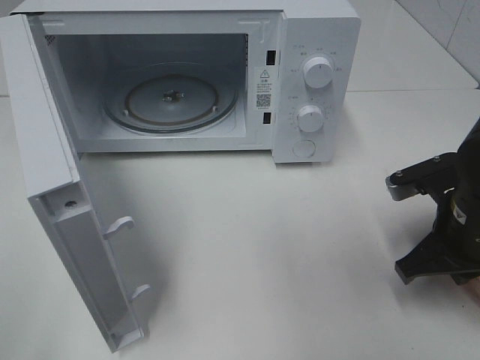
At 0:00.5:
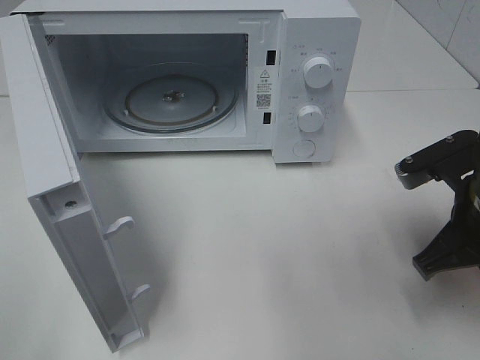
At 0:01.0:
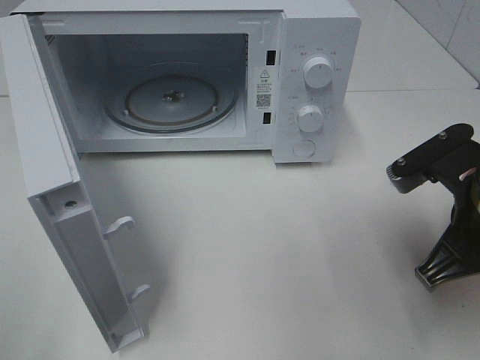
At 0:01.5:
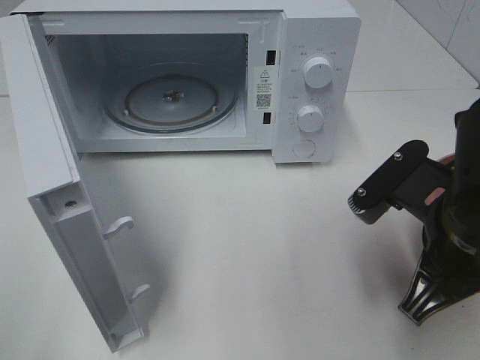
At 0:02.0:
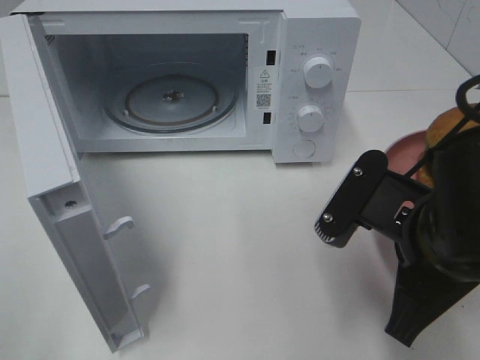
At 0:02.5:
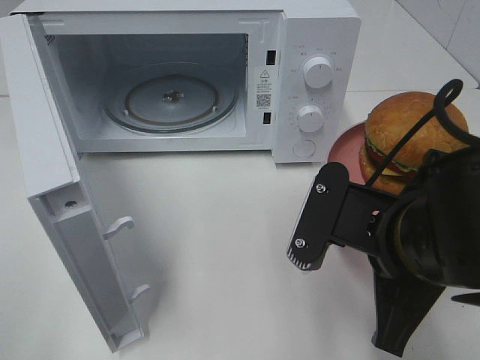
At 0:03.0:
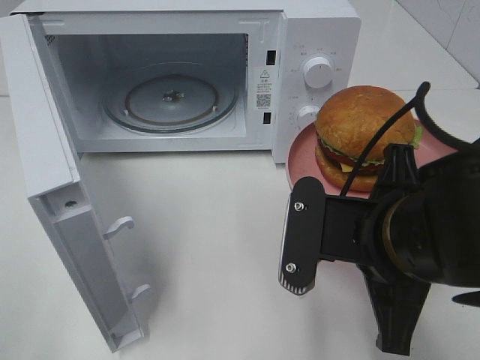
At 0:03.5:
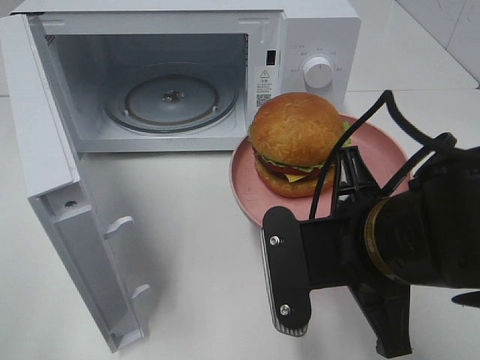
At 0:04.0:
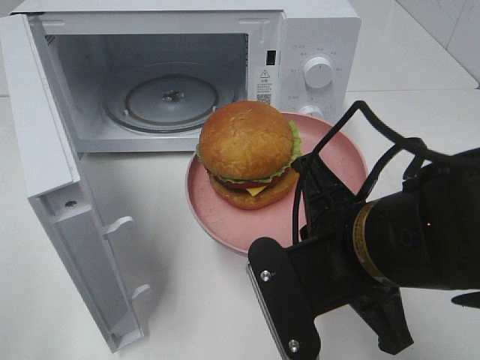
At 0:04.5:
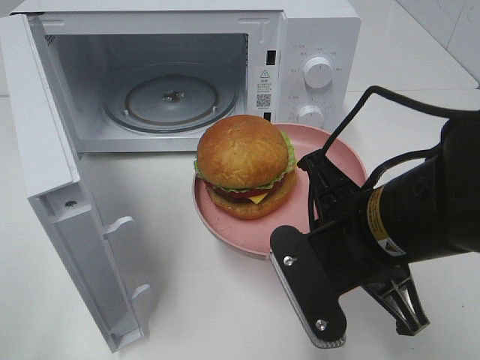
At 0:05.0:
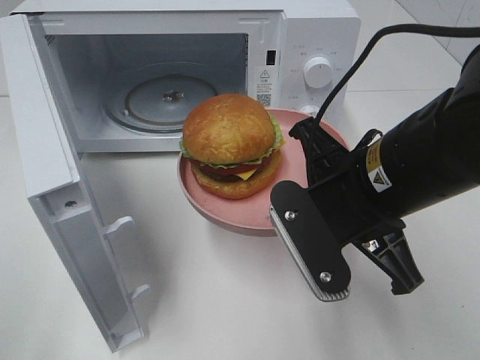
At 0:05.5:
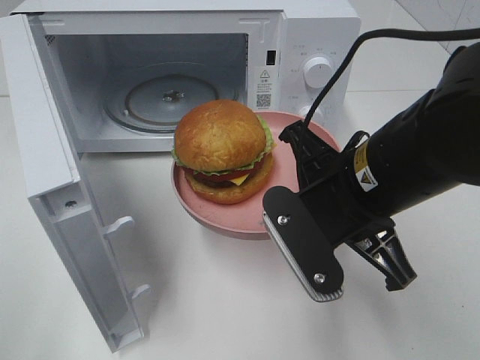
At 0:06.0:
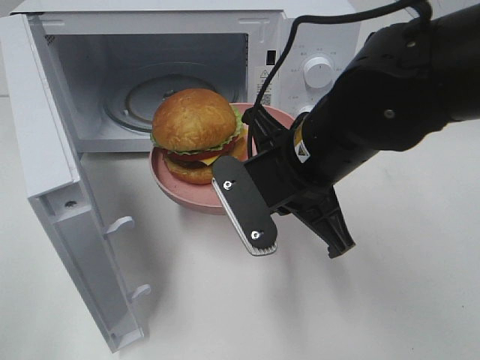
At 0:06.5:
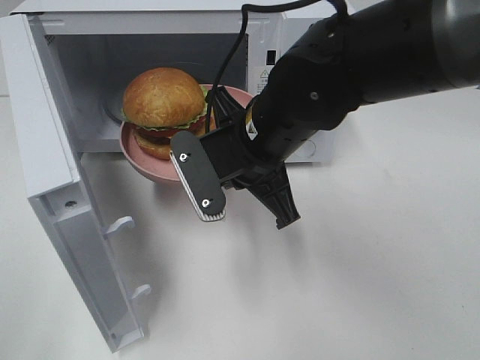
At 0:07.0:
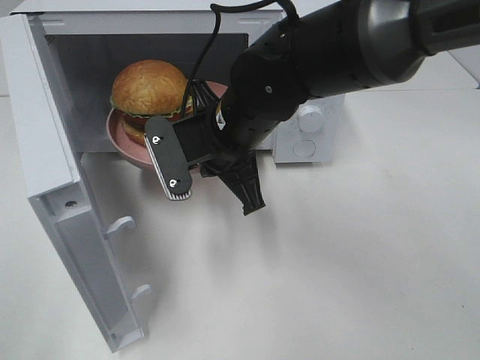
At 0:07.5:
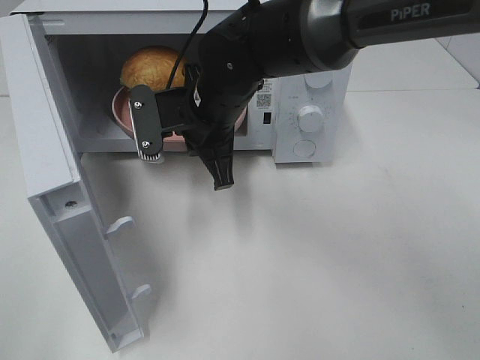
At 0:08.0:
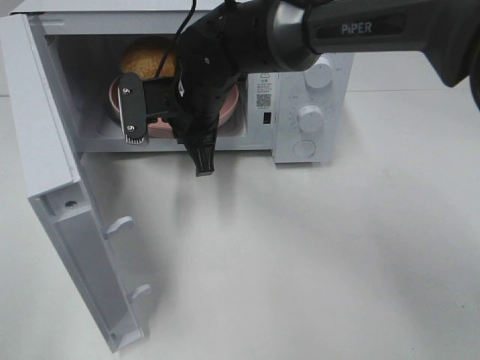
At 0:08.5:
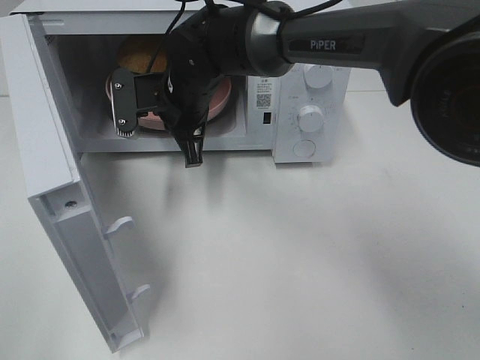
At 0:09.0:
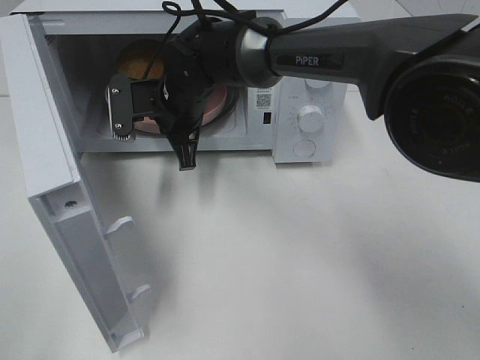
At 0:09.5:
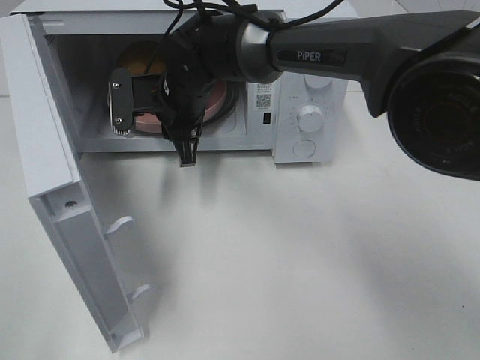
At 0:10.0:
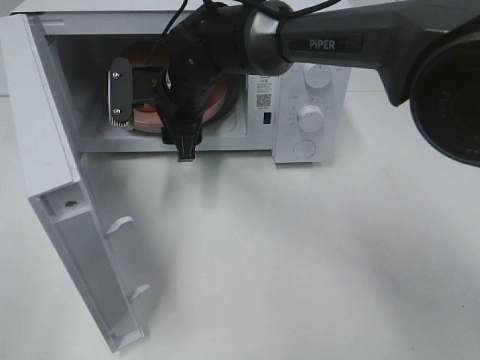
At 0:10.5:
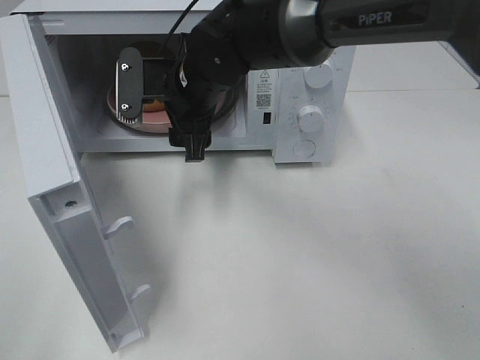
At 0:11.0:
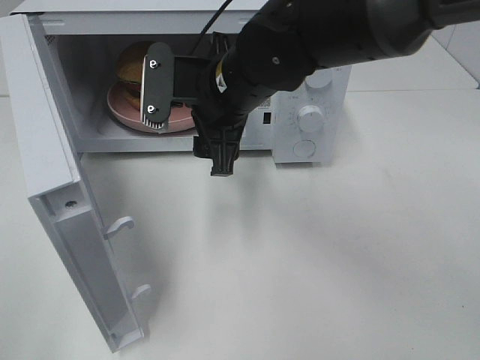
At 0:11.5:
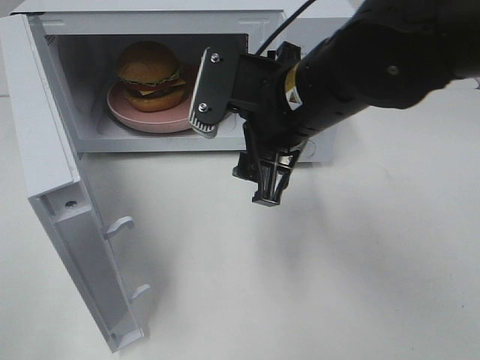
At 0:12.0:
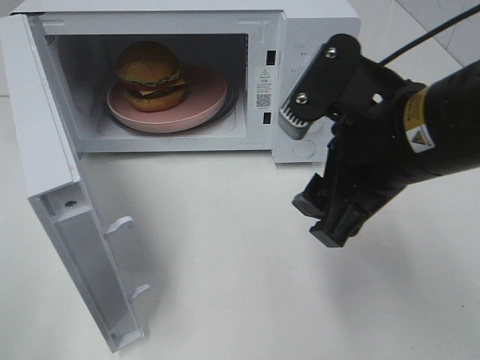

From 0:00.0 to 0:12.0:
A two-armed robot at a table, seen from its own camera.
Task of the whole recording: Heat the burger.
Step, from 0:00.0 to 0:09.0: Right hand: place the plate in the microwave.
From 0:00.0 to 0:02.0: The right gripper heads to the left, backward and upward, covering about 15 cm.
From 0:02.0 to 0:04.0: The right gripper heads to the left, covering some 5 cm.
From 0:04.0 to 0:06.0: The right gripper moves forward, some 10 cm.
From 0:06.0 to 0:08.0: The right gripper travels forward and to the left by about 15 cm.
From 0:08.0 to 0:10.0: The right gripper opens its fingers.
From 0:10.0 to 0:12.0: The right gripper moves backward and to the right, approximately 25 cm.

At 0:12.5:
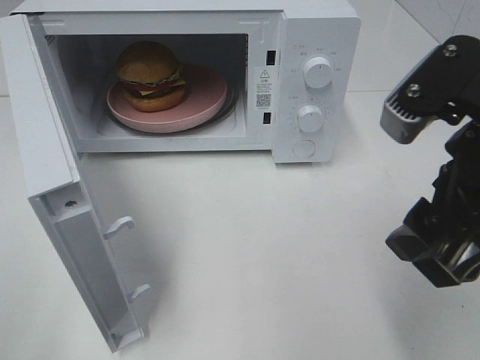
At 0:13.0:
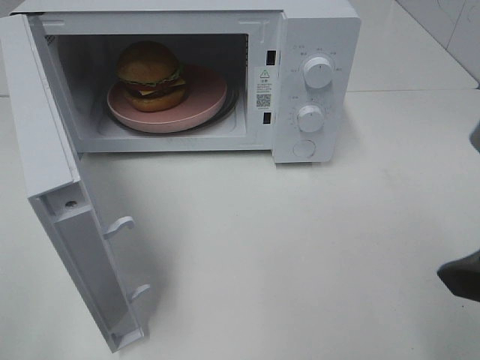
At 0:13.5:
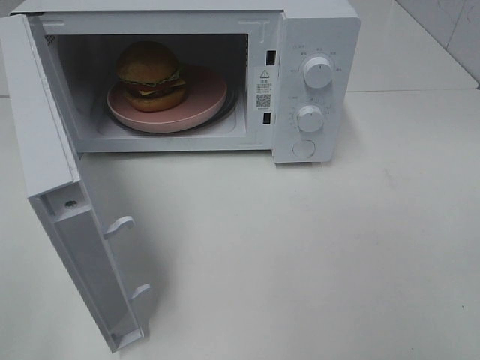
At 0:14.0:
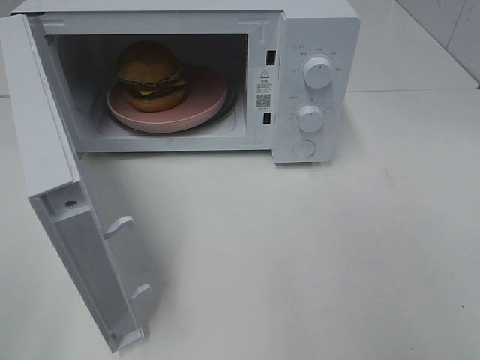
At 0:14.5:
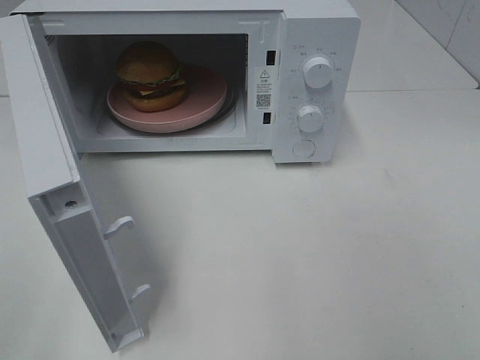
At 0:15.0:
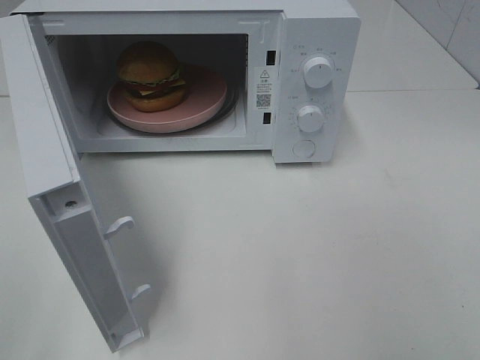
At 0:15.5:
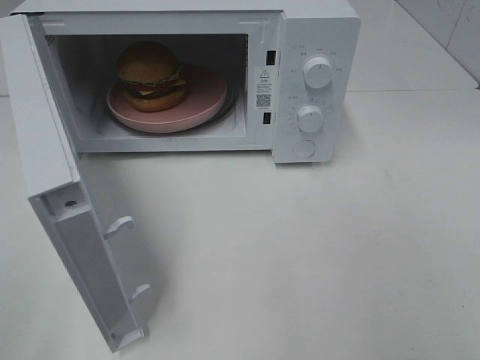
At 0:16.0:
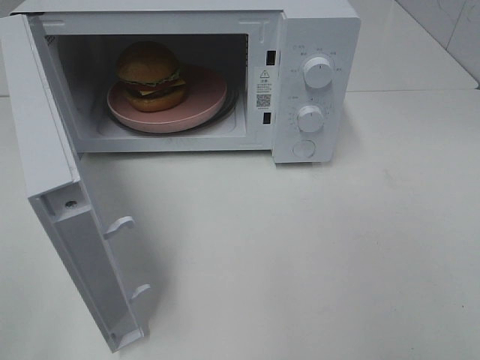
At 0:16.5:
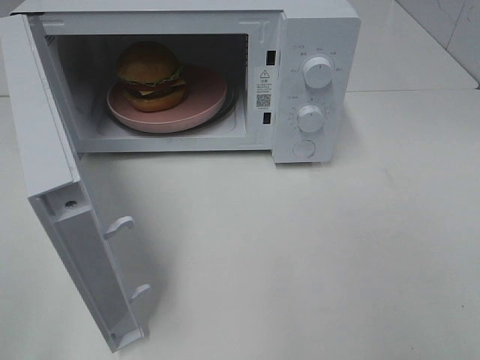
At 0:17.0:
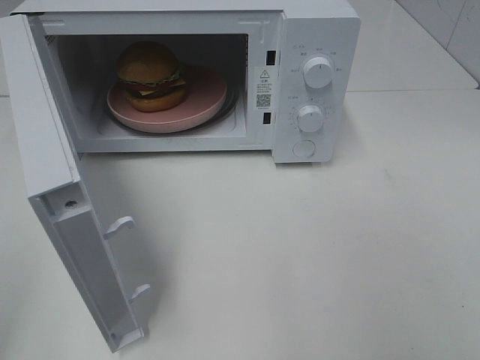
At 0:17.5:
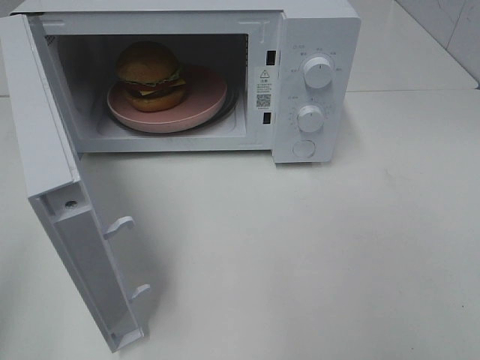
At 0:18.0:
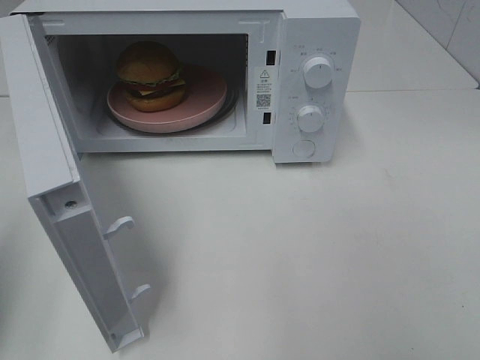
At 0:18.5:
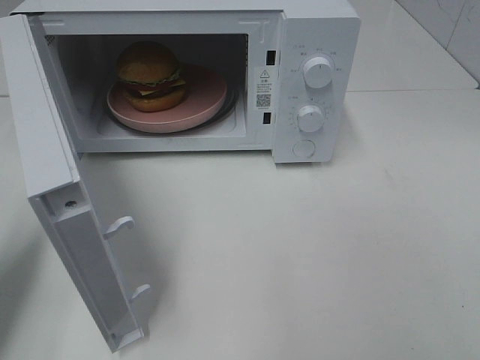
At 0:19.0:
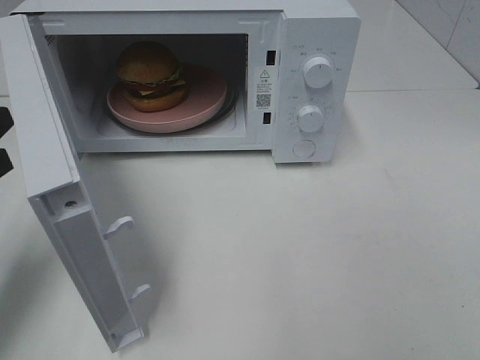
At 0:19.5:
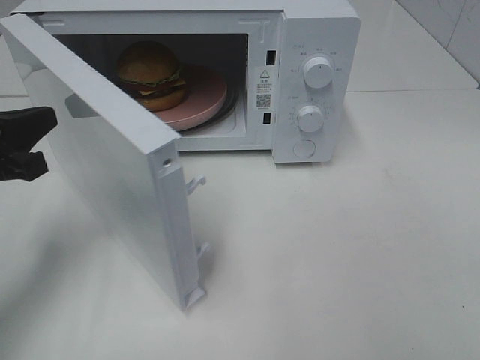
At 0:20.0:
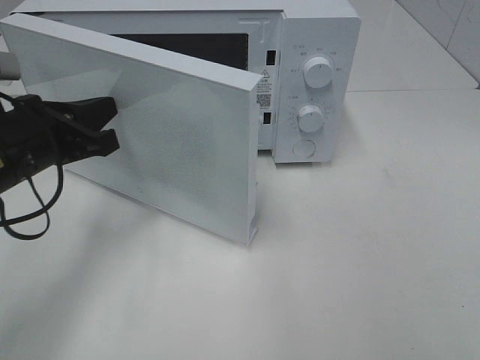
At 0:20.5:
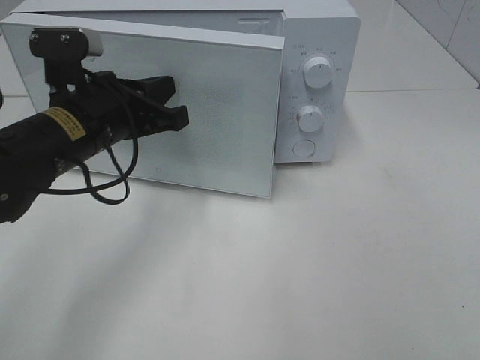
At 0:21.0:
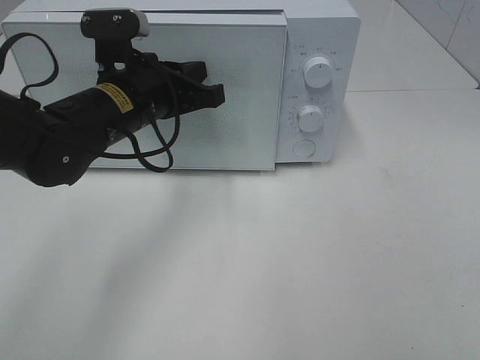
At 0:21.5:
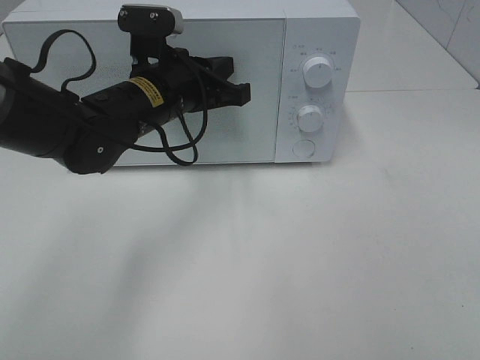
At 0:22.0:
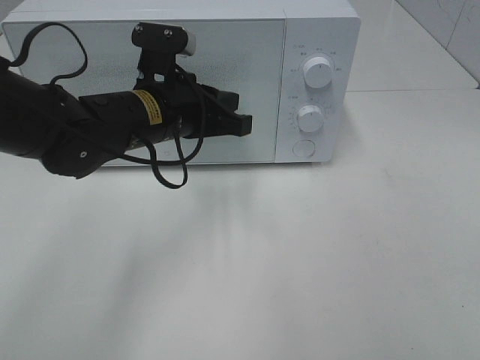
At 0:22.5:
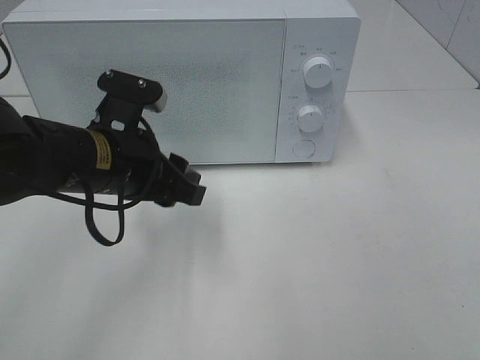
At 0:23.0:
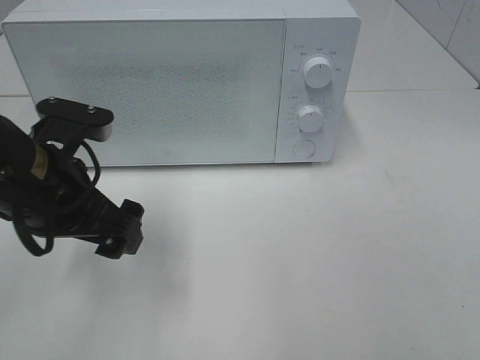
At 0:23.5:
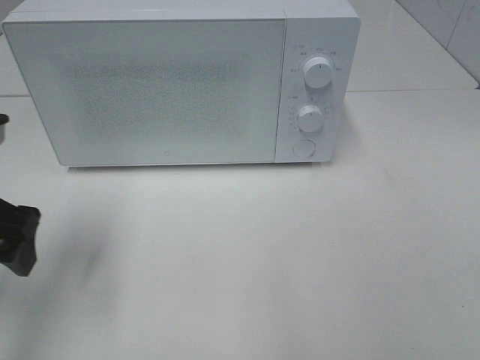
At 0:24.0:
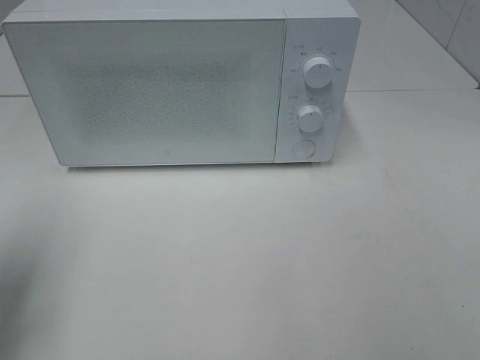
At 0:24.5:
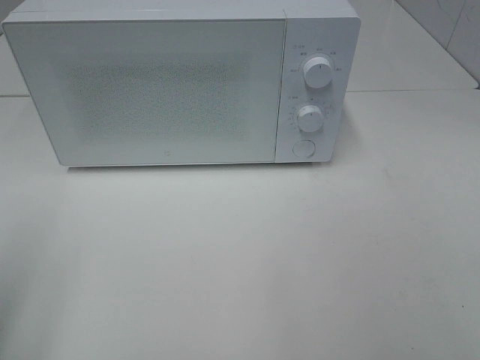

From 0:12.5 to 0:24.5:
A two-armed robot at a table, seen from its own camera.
Task of the whole recording: Heat the burger.
Step, from 0:12.5 to 0:22.0: Left hand: close the microwave door.
From 0:12.5 to 0:14.5: The right gripper goes about 20 cm backward and to the right.
From 0:14.5 to 0:16.5: The two grippers keep their place.
From 0:16.5 to 0:18.5: The left gripper is displaced forward and downward by roughly 20 cm, and closes.
From 0:18.5 to 0:20.5: The left gripper shifts approximately 20 cm to the right and forward.
From 0:20.5 to 0:22.5: The left gripper opens its fingers.
From 0:22.5 to 0:24.5: The left gripper shifts some 25 cm to the left, backward and upward.

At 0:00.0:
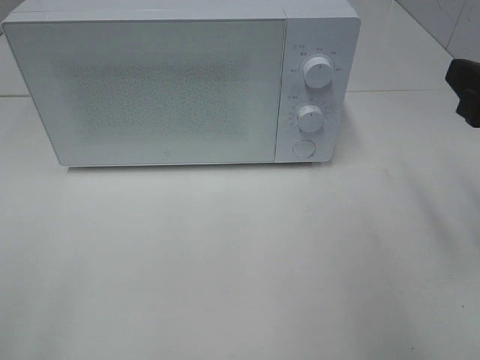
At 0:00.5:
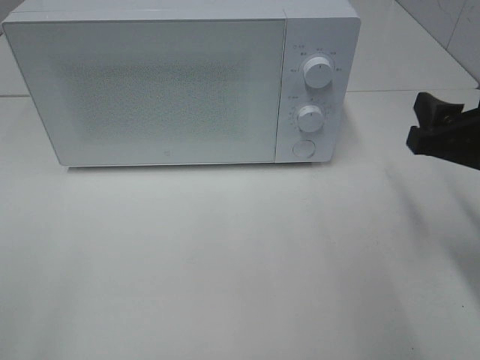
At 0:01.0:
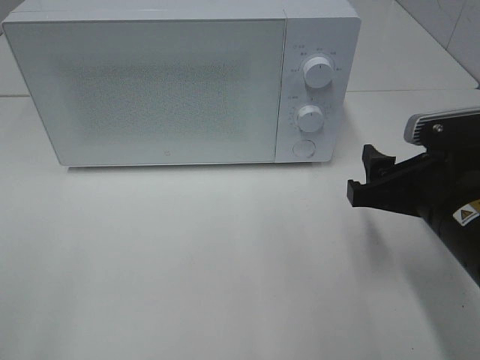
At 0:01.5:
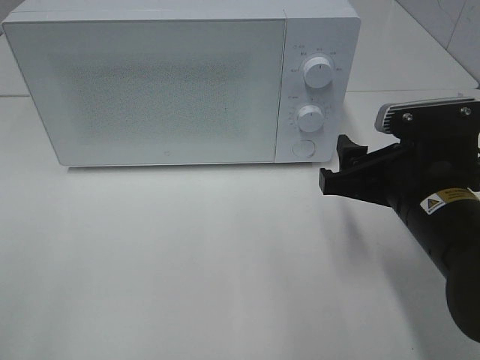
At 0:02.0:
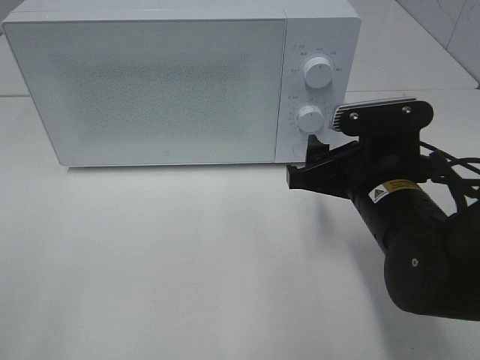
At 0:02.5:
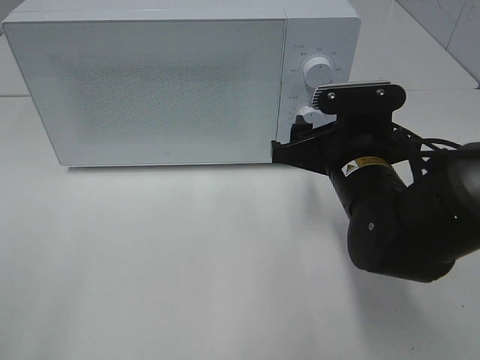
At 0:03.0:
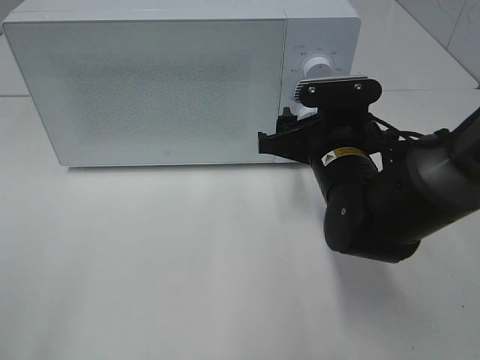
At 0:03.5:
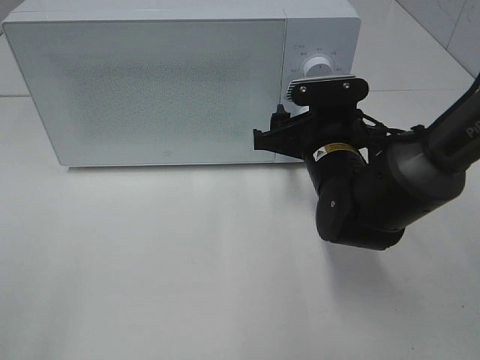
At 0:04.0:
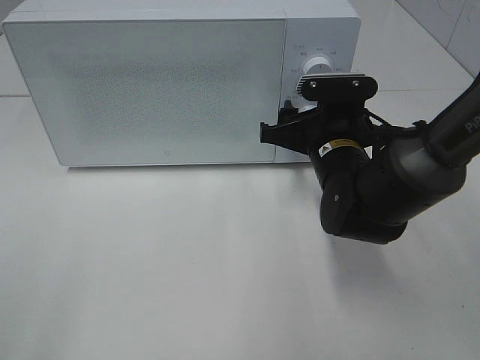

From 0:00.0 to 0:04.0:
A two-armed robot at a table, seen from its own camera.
Task of the whole recording: Heat the burger.
From 0:00.0 to 0:02.0: The right gripper travels to the left and downward by roughly 15 cm.
From 0:02.0 to 0:04.0: The right gripper travels forward by approximately 10 cm.
